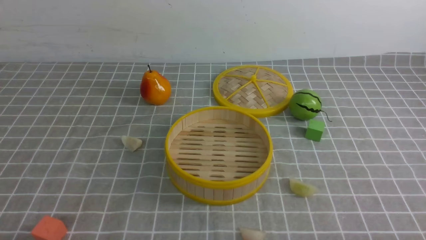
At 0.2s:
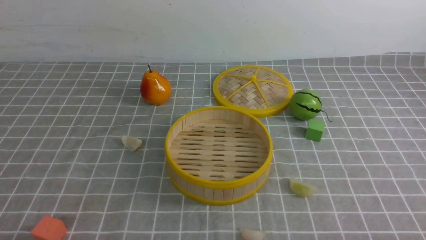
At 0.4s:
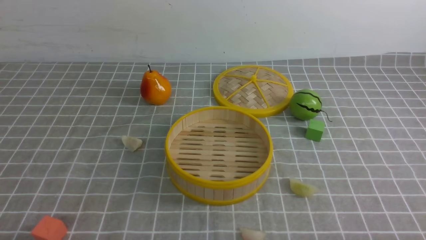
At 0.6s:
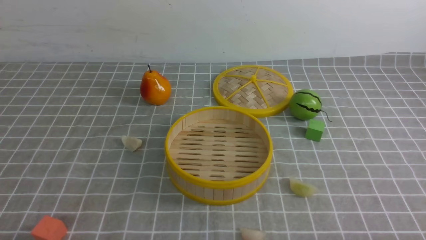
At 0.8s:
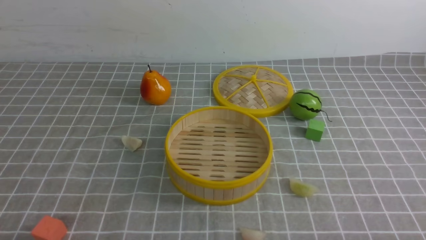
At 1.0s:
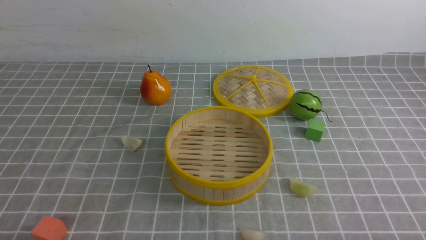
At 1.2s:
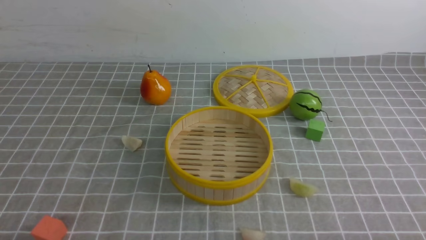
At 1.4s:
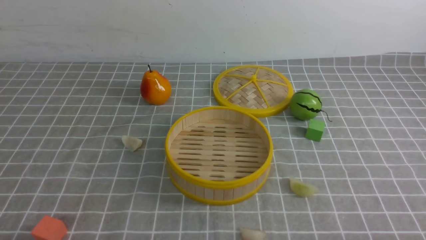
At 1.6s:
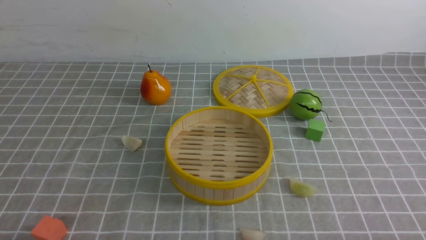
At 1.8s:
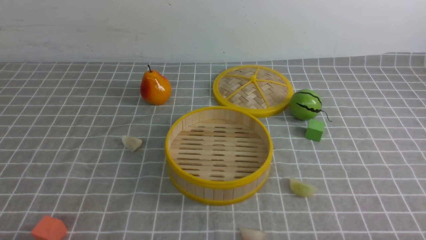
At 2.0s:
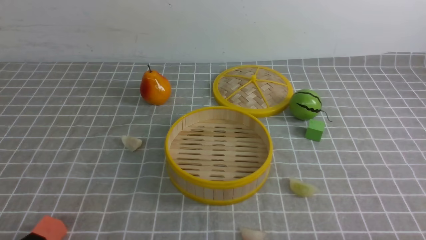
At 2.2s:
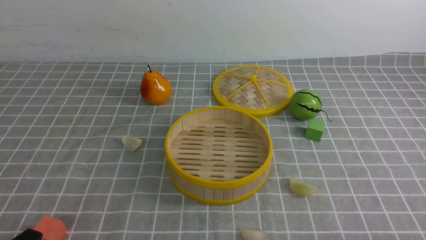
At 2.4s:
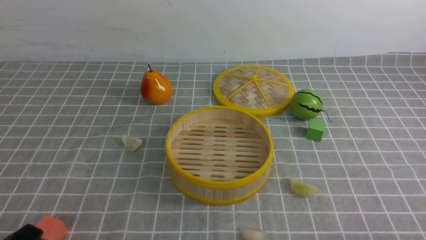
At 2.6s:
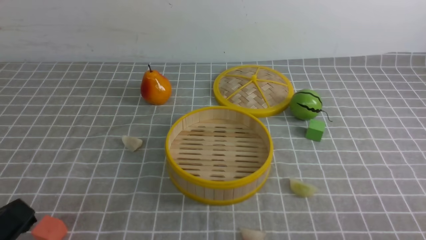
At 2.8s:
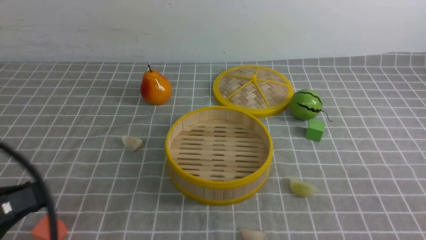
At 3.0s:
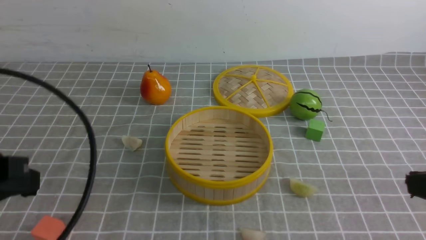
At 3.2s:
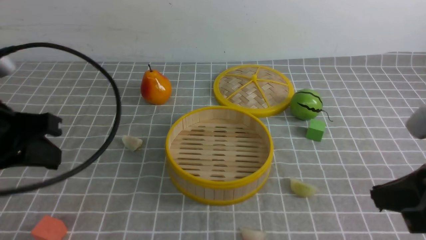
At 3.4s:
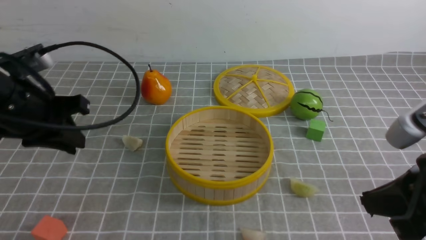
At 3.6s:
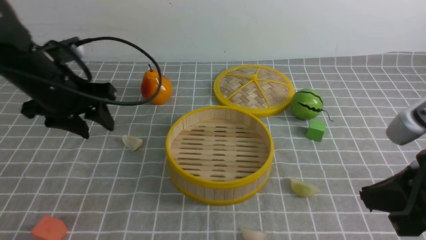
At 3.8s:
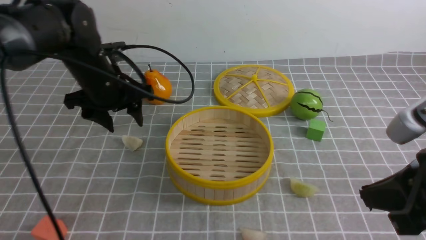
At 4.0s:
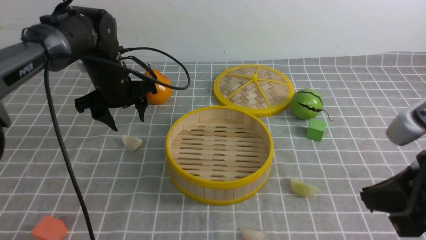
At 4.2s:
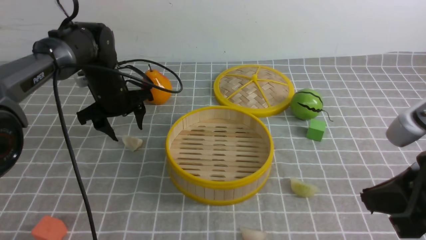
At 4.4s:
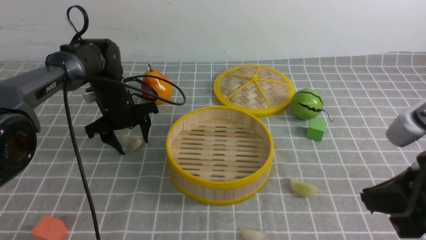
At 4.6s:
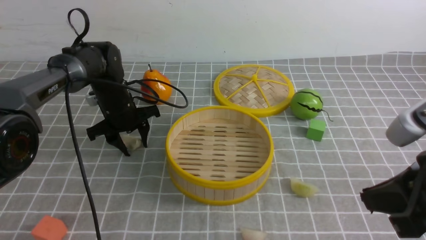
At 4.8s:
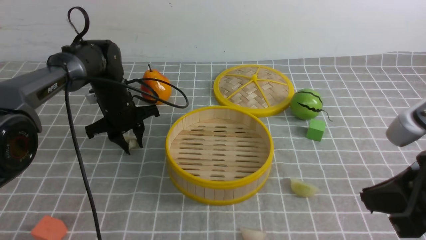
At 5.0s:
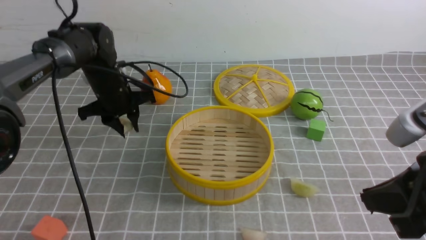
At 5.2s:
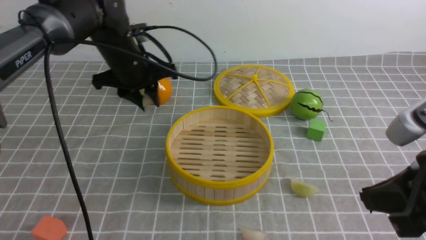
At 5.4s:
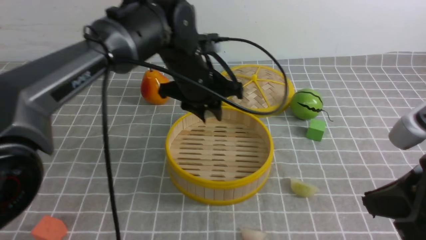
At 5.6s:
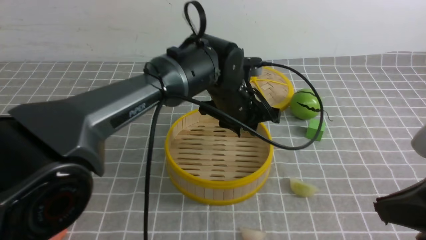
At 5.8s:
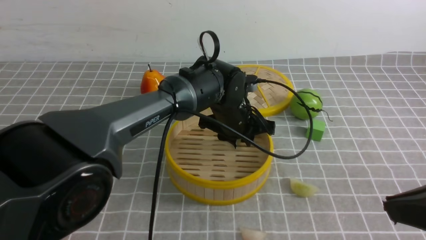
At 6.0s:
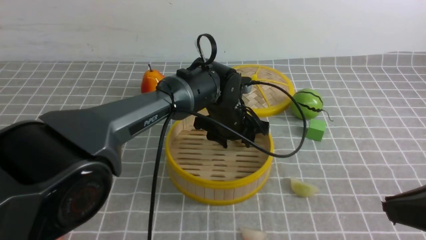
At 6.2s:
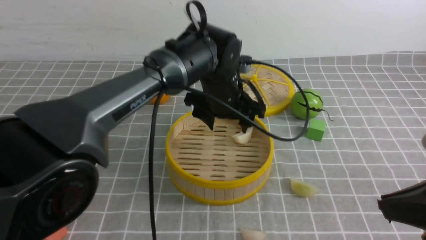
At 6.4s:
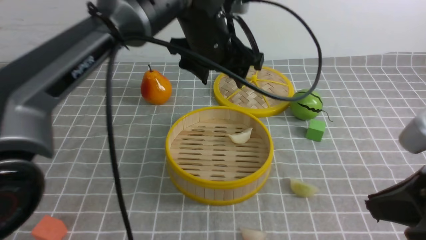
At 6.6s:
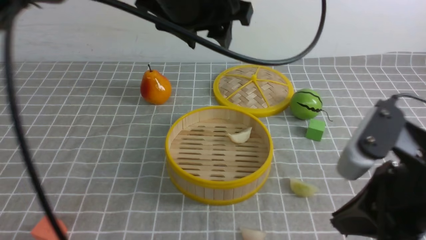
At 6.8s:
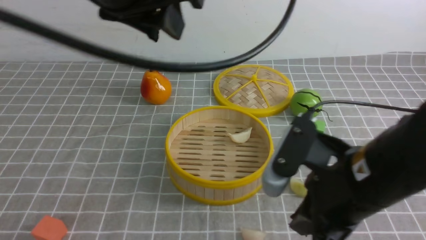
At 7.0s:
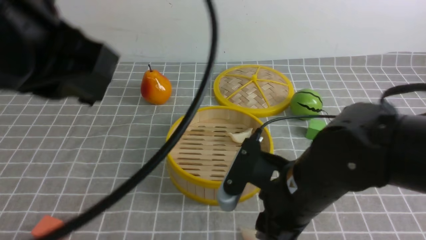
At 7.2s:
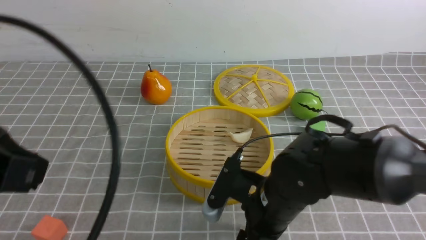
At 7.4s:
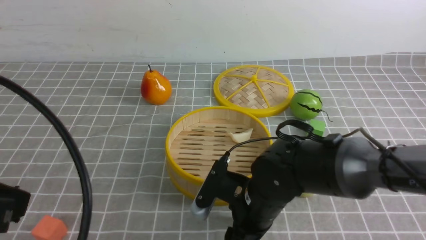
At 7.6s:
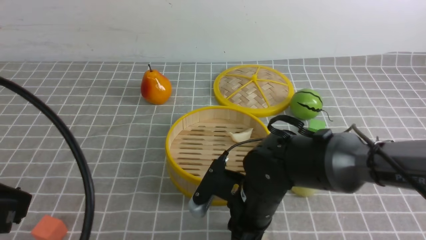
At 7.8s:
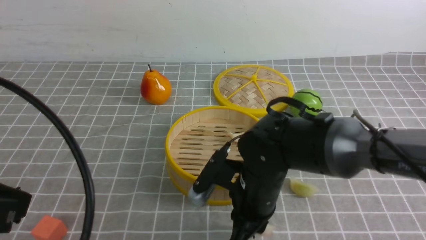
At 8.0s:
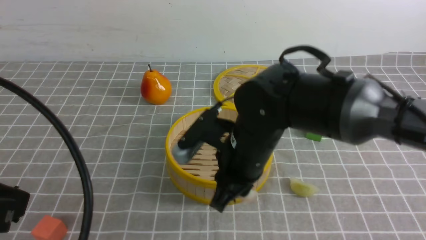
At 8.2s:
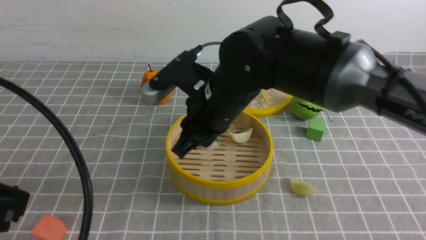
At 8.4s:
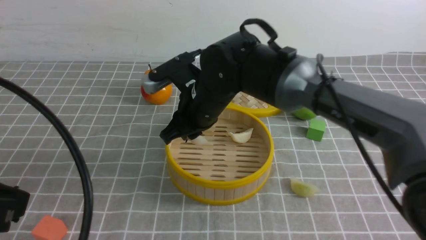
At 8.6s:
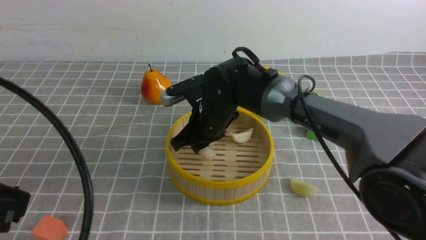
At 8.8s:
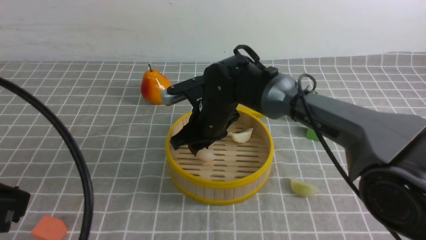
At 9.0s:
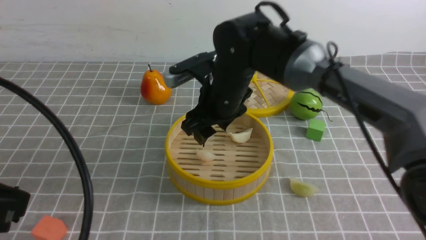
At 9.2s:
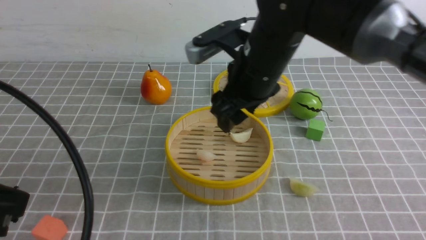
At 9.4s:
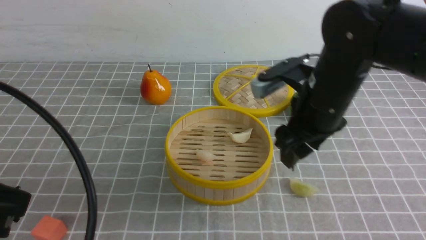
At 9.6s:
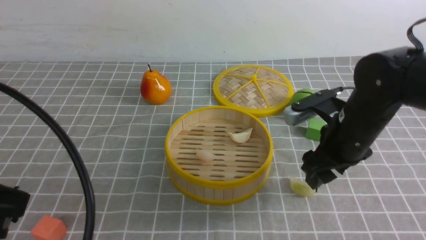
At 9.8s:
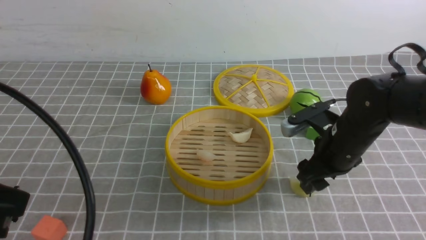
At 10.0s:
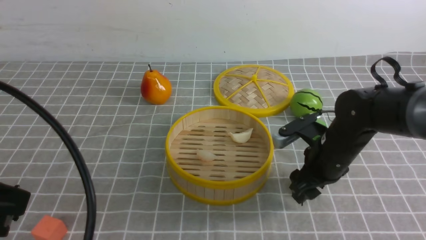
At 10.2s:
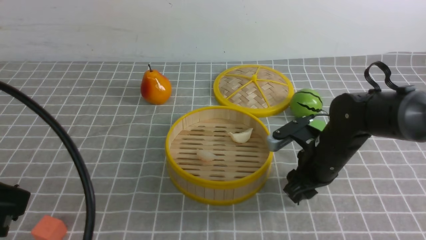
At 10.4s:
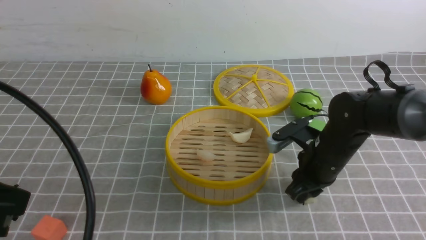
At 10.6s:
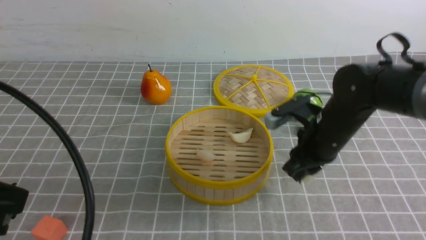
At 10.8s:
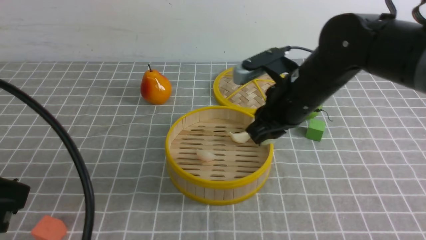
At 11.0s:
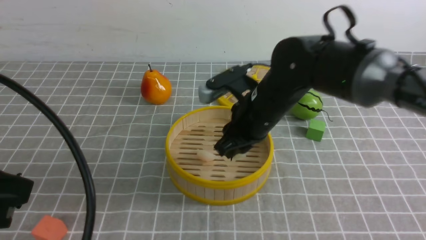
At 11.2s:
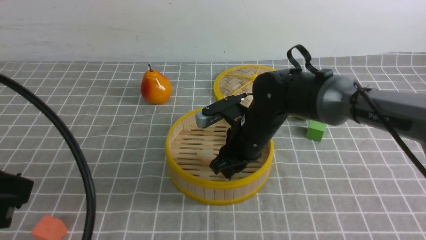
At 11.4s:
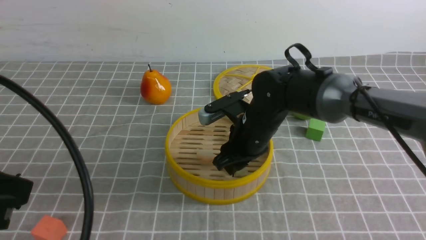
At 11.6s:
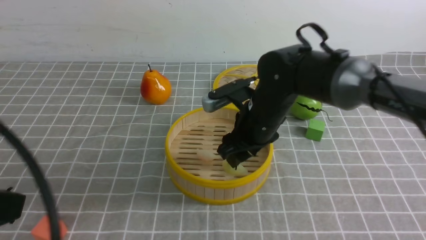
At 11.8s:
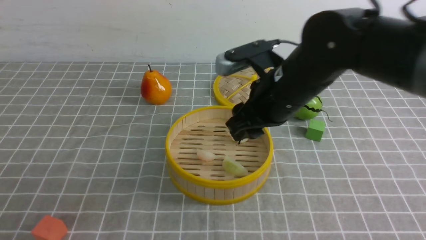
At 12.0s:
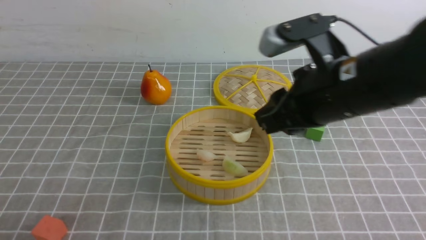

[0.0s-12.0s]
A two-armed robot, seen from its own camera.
Task of the whole recording: put the dumplings into the steamer on the table with the grey tablecloth.
Step, 0.0s to 5.0s: use the left arm to grab a dumpling.
Step, 5.2s to 6.4s: use the left arm to put the dumpling into the steamer.
Step, 6.6s to 7.8s: use the right arm to grab a dumpling.
Step, 8.0s to 8.8s: use the right arm to put the dumpling into the steamer.
Step, 9.2s to 10.6s: use the right arm to grab a dumpling.
Step, 10.8s to 11.6s: use the right arm to put the dumpling into the steamer.
1.6s to 3.0s: The left gripper shifts some 20 cm upward and forward, and closes.
3.0s to 4.4s: The left gripper goes about 35 cm forward and downward, and opens up.
4.4s to 6.0s: The left gripper is displaced to the right by about 20 cm, and closes, then opens again.
6.0s to 7.6s: The left gripper travels backward, to the left and upward by some 40 cm, and closes its fingers. The right gripper travels to the left, downward and forward by roughly 30 cm, and opens.
7.6s to 9.0s: The right gripper travels upward and forward by some 15 cm, and opens.
9.0s to 10.4s: The right gripper shifts some 15 cm to the right and downward, and closes its fingers.
10.4s to 12.0s: The left gripper moves downward, backward and to the left, approximately 10 cm. The right gripper goes up and down, approximately 15 cm each way, reversing 2 times.

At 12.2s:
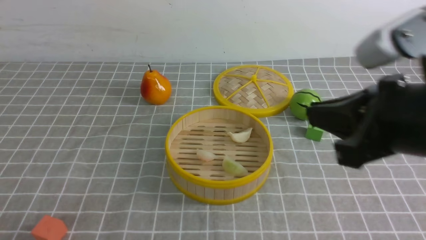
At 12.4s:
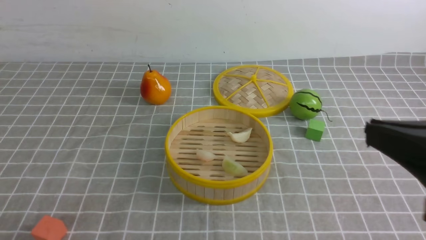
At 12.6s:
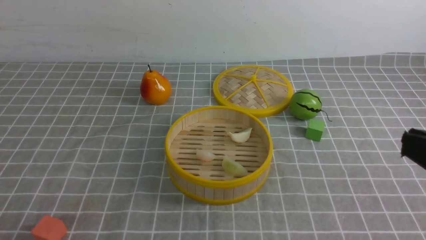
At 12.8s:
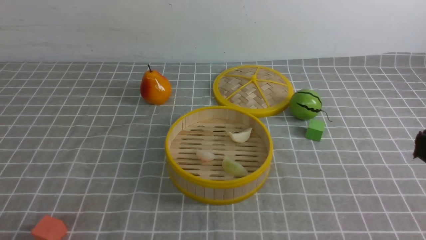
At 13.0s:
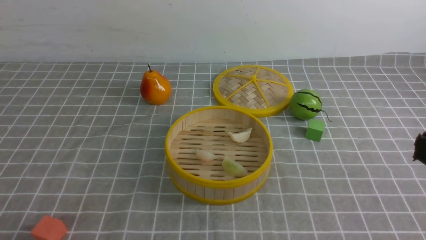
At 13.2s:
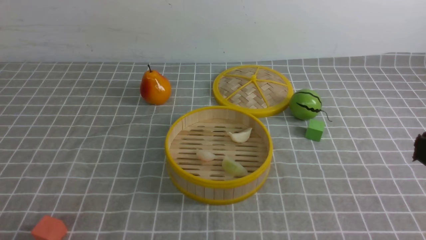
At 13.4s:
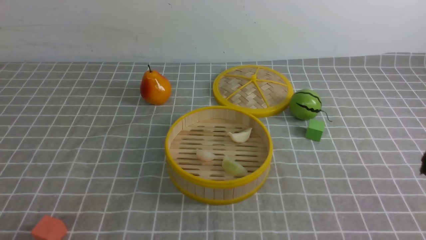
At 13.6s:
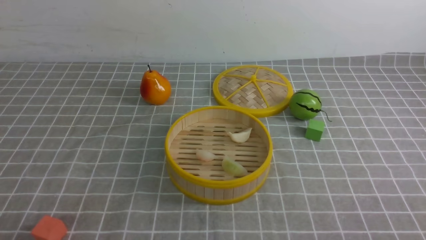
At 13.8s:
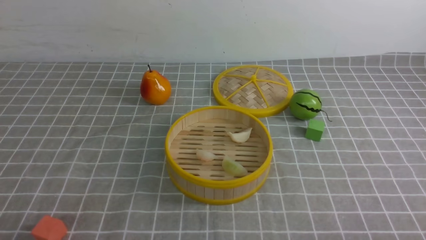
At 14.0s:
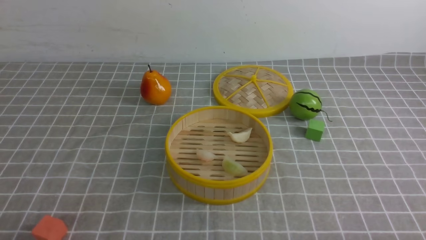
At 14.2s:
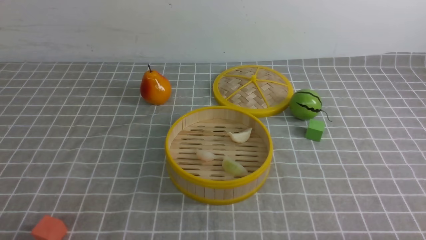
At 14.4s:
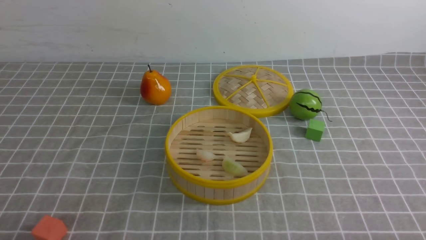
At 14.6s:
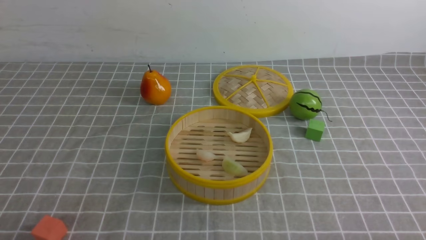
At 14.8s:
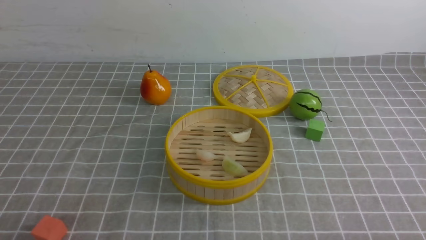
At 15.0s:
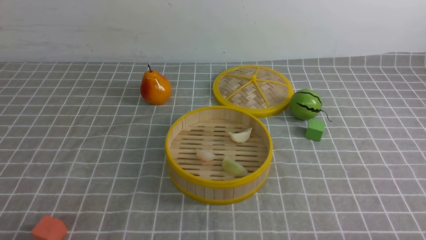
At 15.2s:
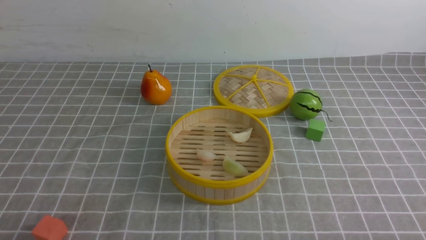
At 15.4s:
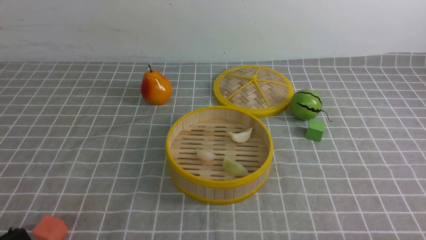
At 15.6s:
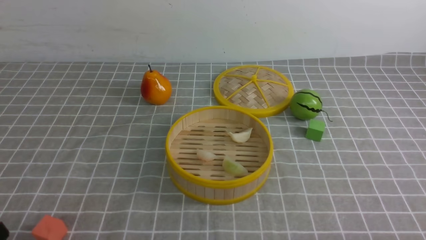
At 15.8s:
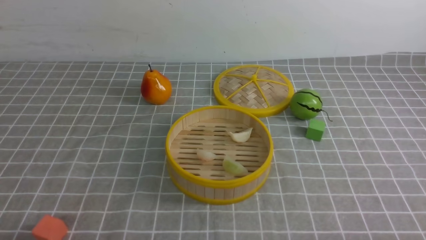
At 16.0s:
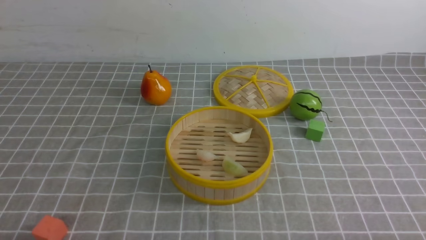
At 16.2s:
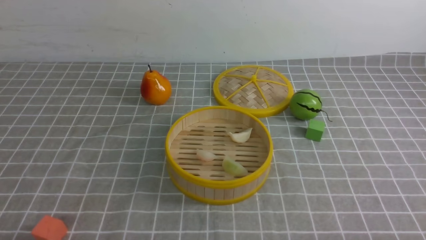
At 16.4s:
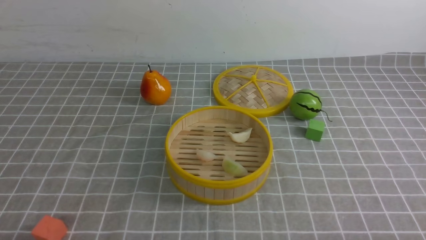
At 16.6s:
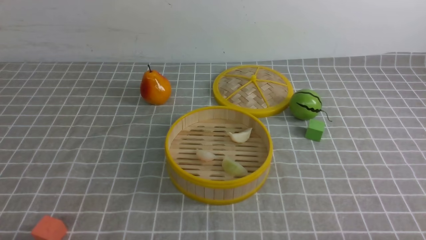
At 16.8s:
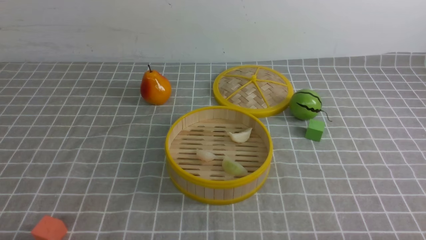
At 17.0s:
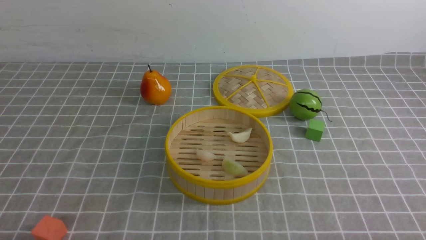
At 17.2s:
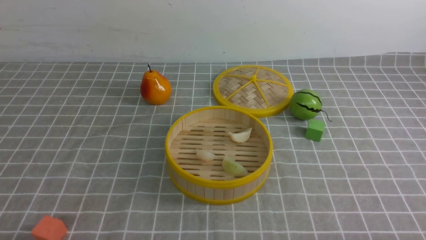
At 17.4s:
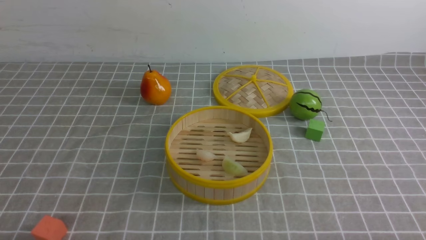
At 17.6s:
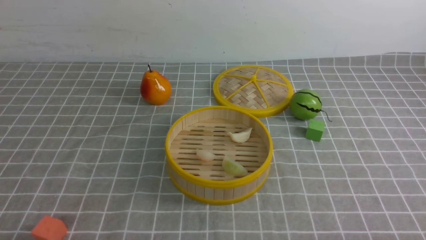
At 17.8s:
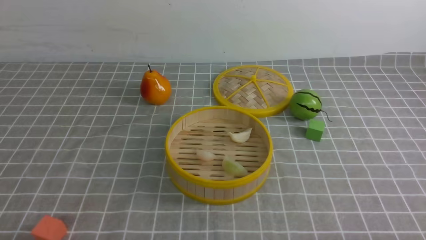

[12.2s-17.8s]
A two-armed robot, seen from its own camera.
Task of the whole recording: put the dumplings into the steamer on the table with the grey tablecloth.
12.2s to 13.6s: The right gripper travels downward, to the right and backward by approximately 20 cm.
16.4s to 17.8s: Both grippers stay put.
